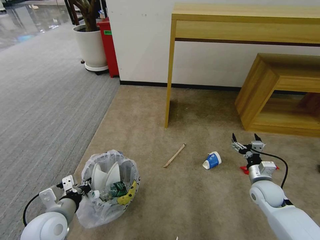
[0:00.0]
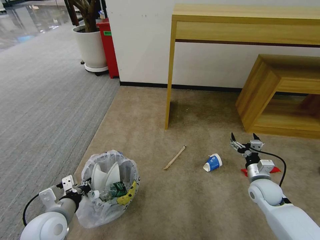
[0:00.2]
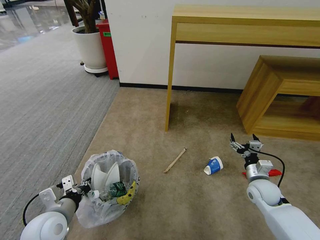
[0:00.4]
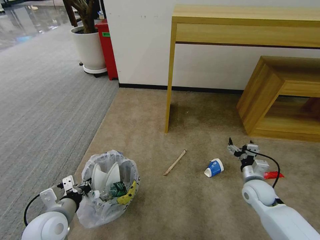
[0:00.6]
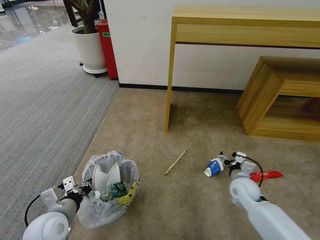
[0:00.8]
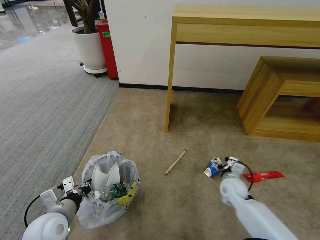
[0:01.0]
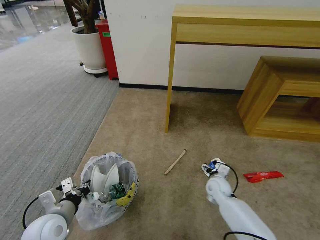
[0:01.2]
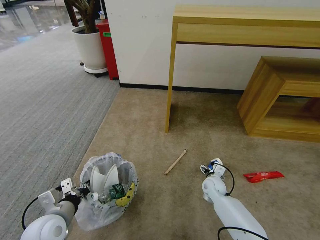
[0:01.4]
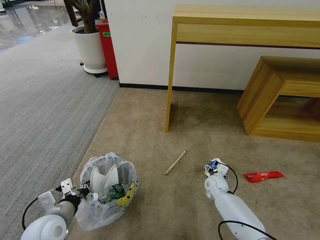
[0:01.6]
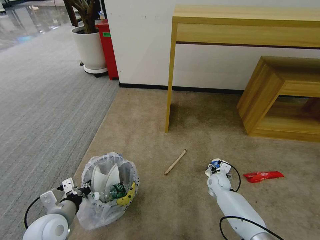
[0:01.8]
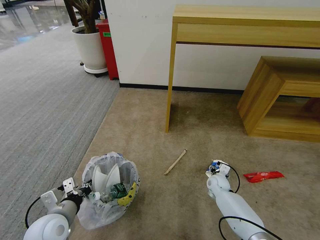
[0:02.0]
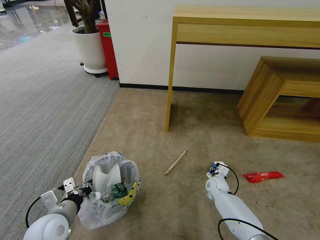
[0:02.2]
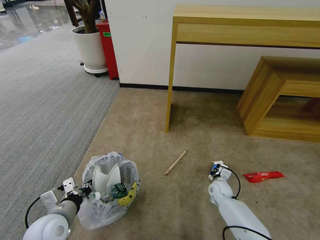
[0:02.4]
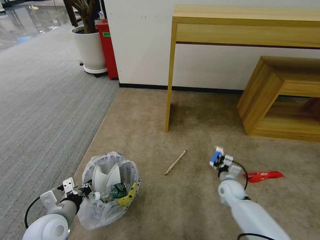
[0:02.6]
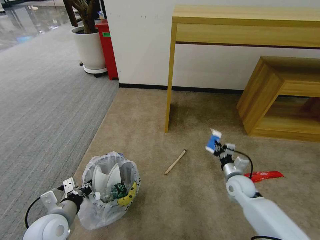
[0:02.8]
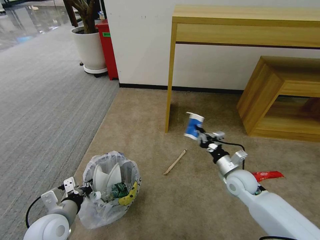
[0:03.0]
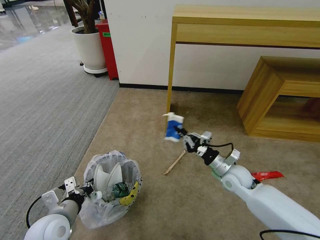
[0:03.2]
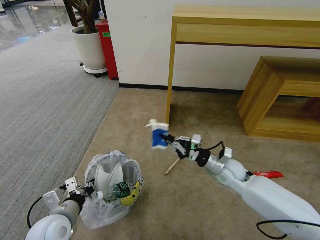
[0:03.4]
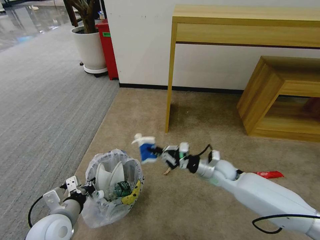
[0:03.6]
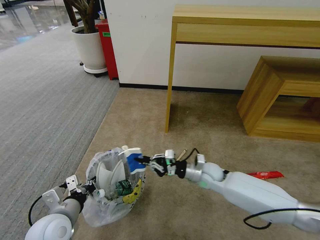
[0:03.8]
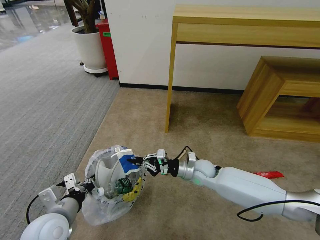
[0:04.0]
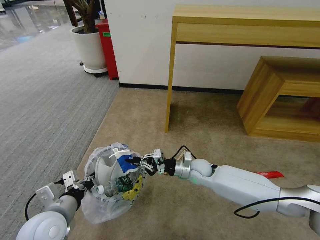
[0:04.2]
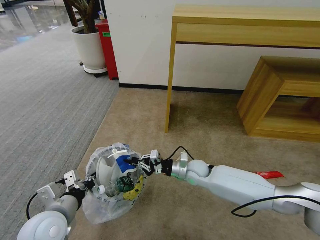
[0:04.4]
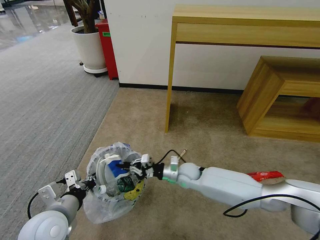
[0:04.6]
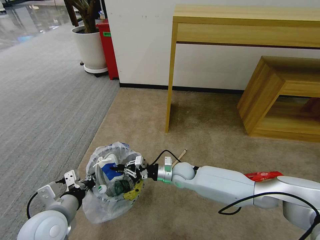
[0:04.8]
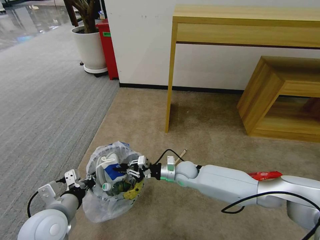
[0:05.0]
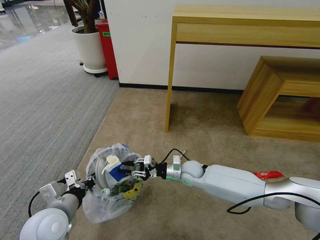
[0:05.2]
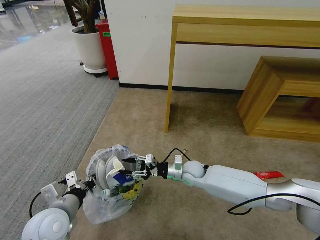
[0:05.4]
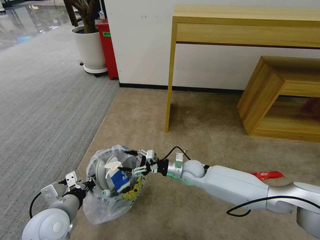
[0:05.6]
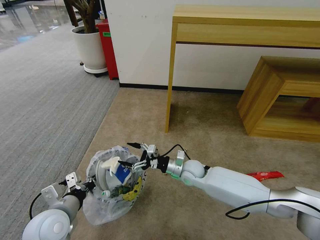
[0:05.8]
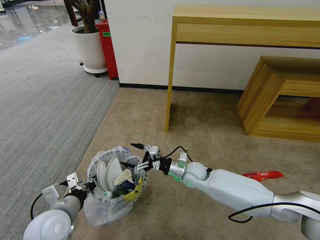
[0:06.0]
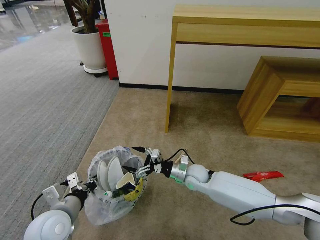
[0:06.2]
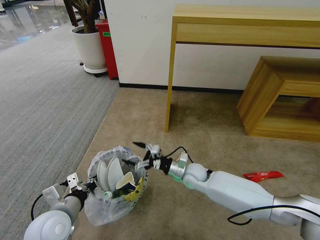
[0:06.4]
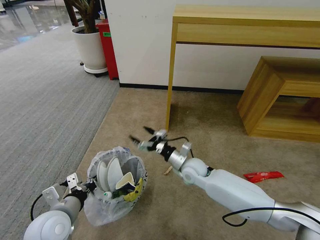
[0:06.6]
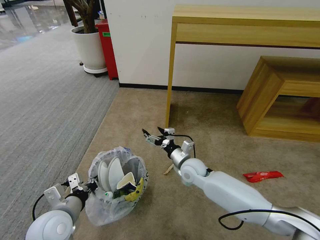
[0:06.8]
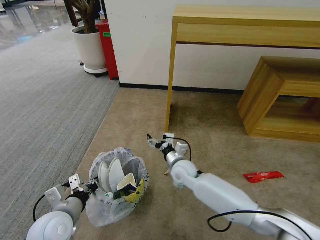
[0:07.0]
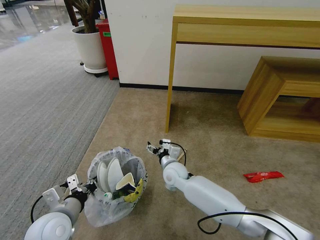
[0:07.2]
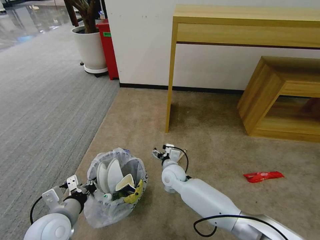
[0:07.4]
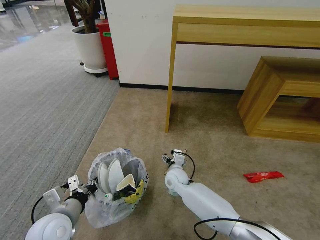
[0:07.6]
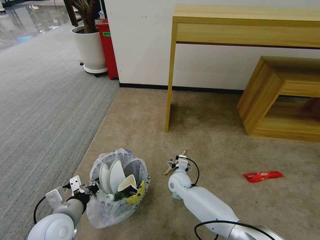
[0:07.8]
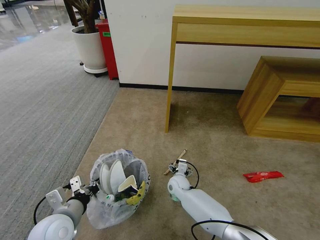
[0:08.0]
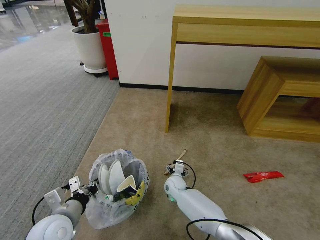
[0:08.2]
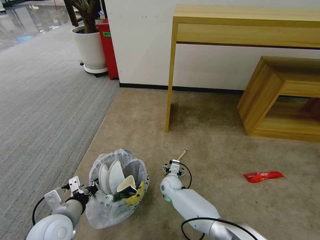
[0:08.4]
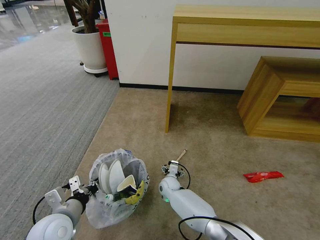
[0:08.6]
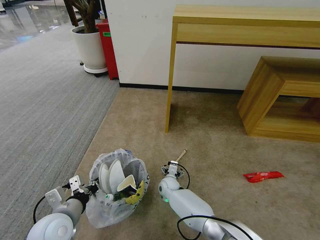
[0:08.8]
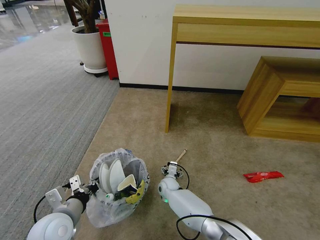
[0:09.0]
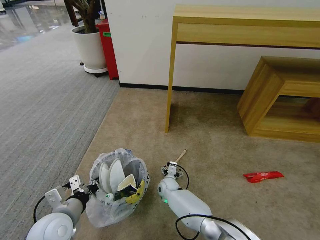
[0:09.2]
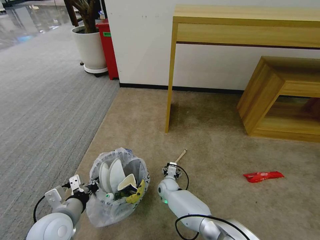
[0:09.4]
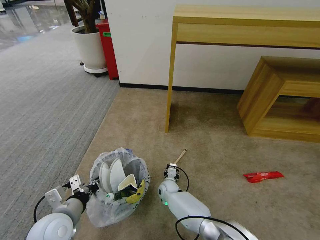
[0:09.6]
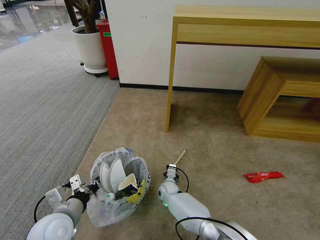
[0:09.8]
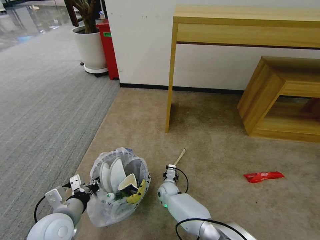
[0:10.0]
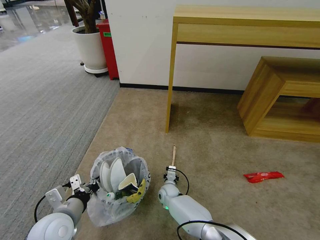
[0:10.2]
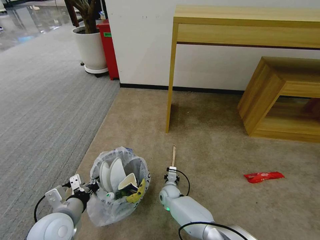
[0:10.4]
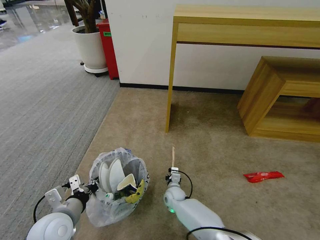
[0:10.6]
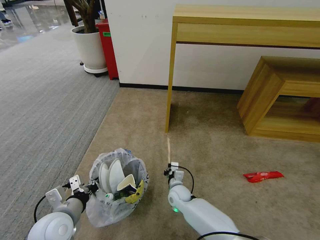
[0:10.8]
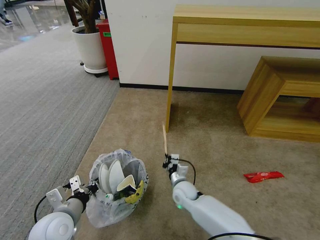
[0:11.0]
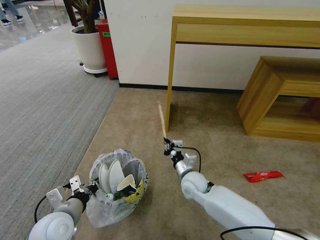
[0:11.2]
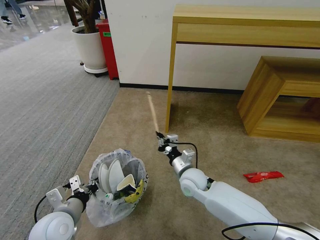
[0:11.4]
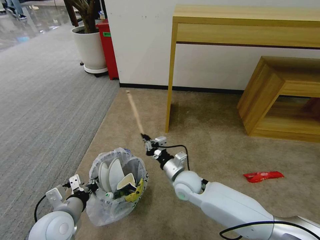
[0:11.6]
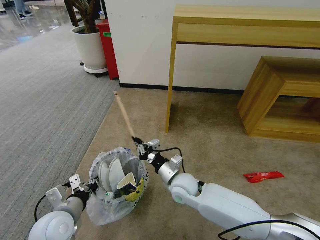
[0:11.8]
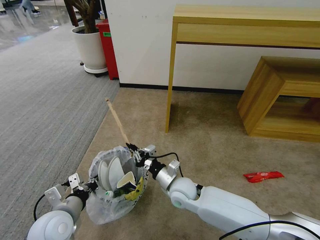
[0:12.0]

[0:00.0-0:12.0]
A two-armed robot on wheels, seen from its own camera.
Task of the whole recording: Pick up the trash bin and place the garbage on the floor into it.
0:00.0 to 0:01.6: The right gripper moves to the left, downward and forward, approximately 20 cm.
0:01.6 to 0:03.0: The right gripper heads upward, covering about 15 cm, and closes its fingers.
0:03.0 to 0:04.4: The right gripper is displaced to the left and forward by some 15 cm.
0:04.4 to 0:06.0: The right gripper opens its fingers.
0:06.0 to 0:07.6: The right gripper shifts approximately 10 cm to the left and downward.
0:07.6 to 0:09.0: The right gripper travels downward by some 10 cm.
0:09.0 to 0:10.4: The right gripper closes.
0:10.4 to 0:12.0: The right gripper travels upward by roughly 20 cm.

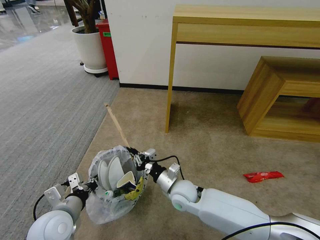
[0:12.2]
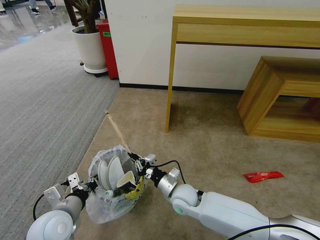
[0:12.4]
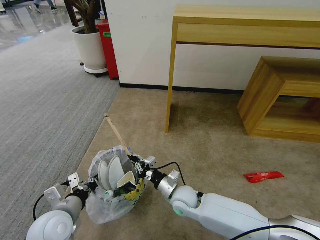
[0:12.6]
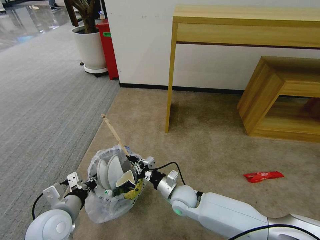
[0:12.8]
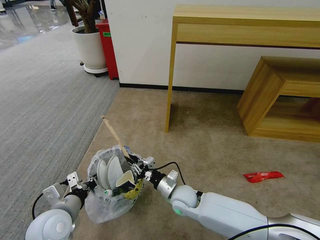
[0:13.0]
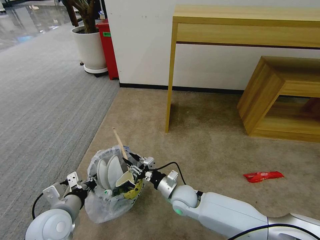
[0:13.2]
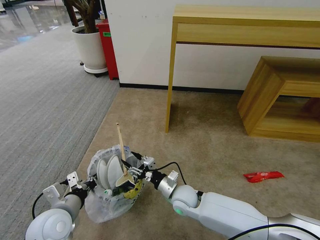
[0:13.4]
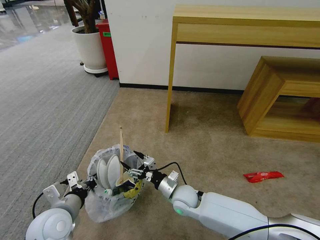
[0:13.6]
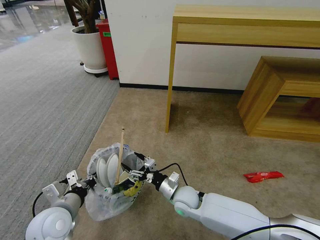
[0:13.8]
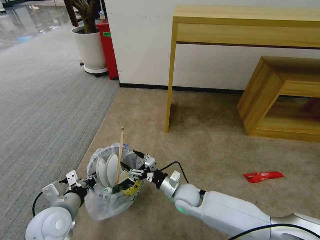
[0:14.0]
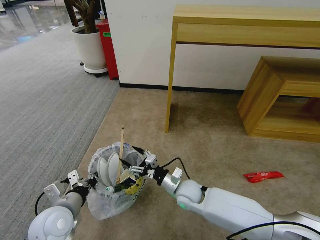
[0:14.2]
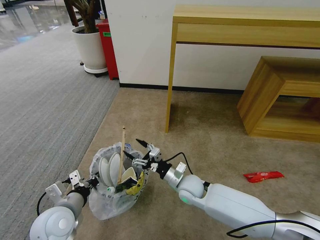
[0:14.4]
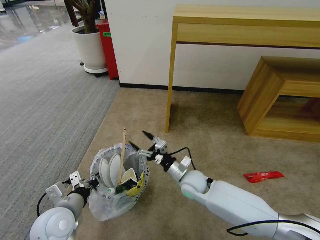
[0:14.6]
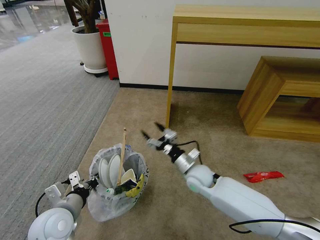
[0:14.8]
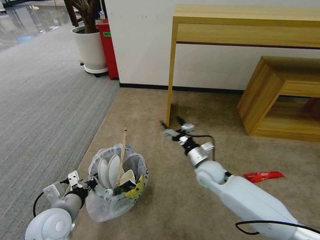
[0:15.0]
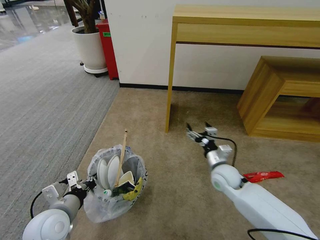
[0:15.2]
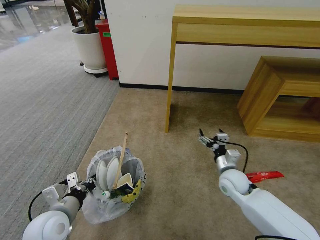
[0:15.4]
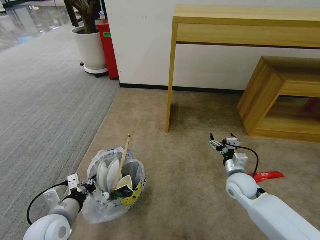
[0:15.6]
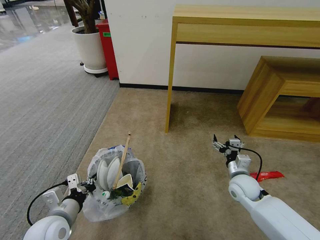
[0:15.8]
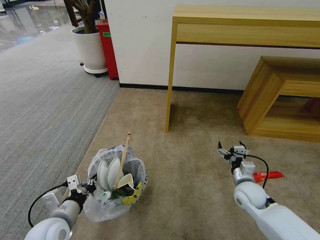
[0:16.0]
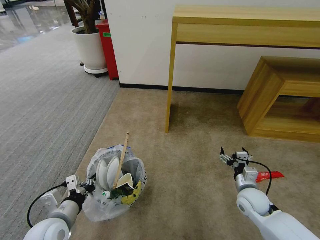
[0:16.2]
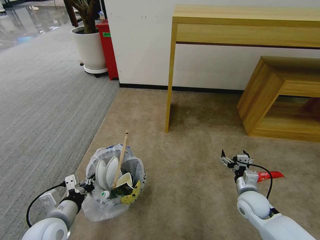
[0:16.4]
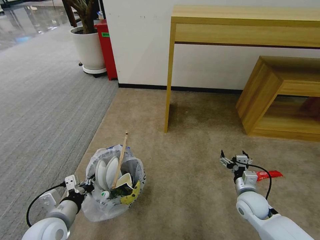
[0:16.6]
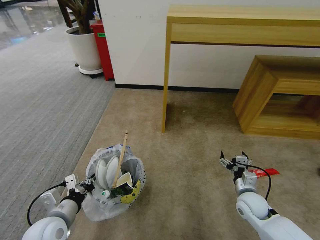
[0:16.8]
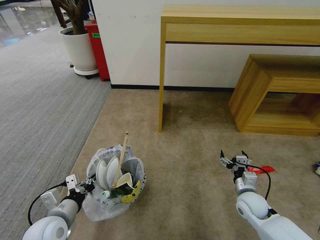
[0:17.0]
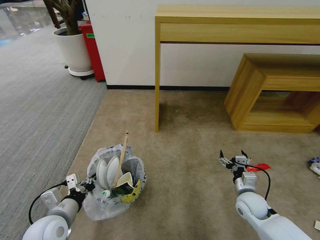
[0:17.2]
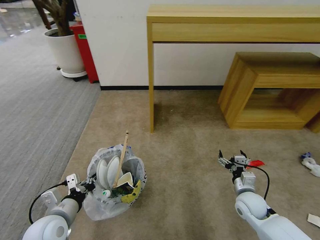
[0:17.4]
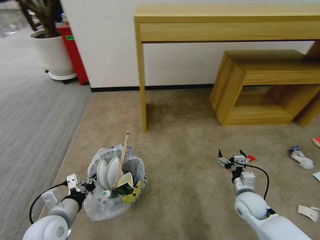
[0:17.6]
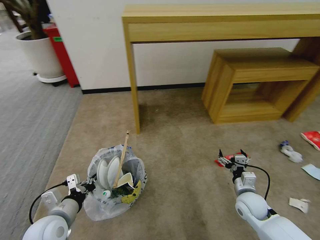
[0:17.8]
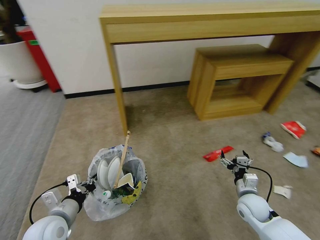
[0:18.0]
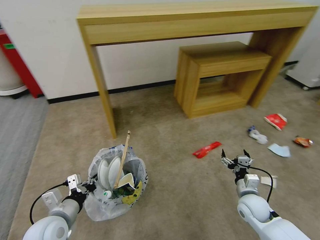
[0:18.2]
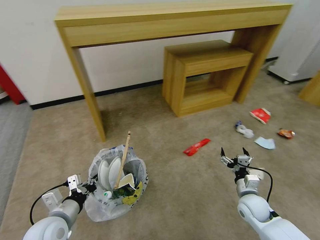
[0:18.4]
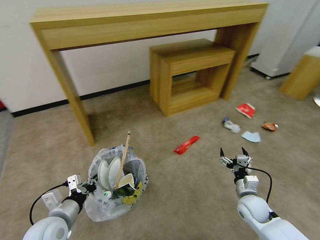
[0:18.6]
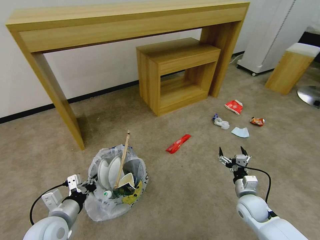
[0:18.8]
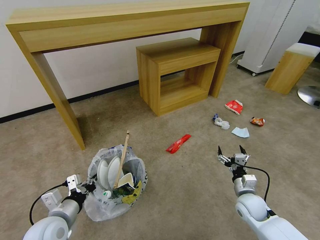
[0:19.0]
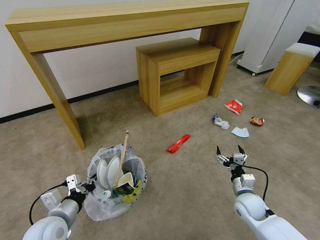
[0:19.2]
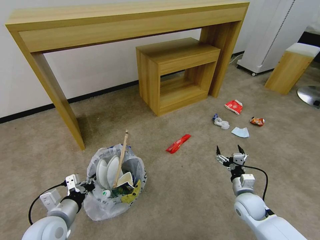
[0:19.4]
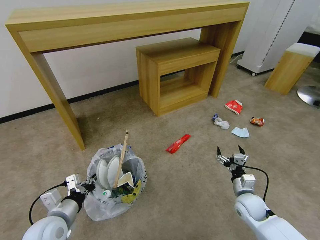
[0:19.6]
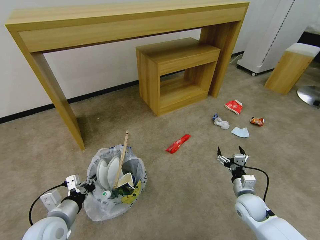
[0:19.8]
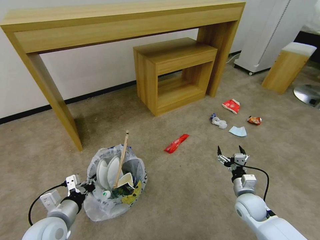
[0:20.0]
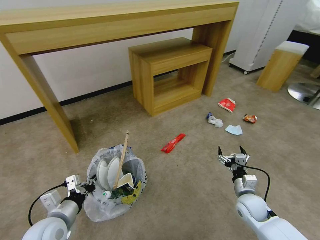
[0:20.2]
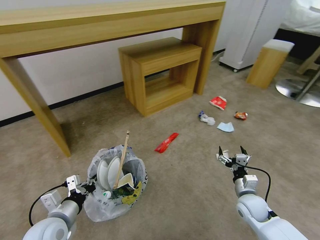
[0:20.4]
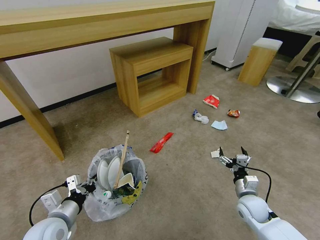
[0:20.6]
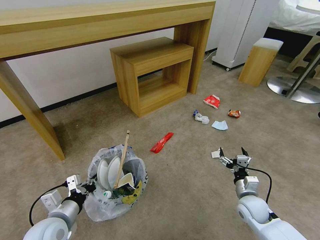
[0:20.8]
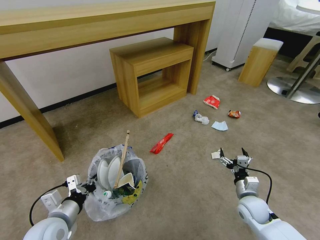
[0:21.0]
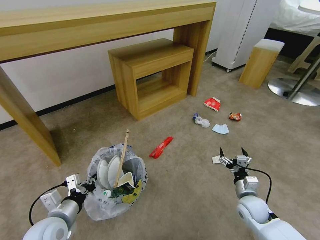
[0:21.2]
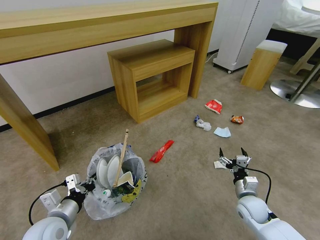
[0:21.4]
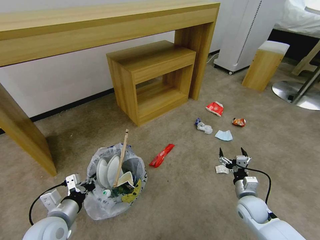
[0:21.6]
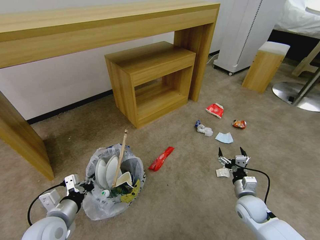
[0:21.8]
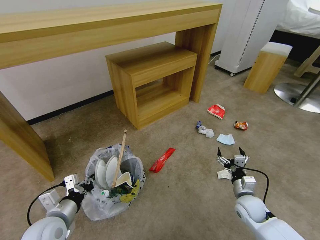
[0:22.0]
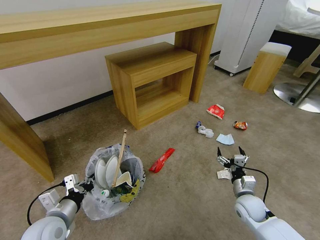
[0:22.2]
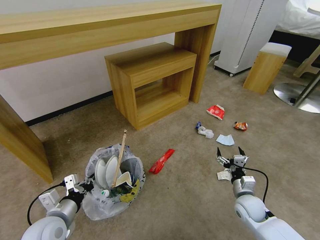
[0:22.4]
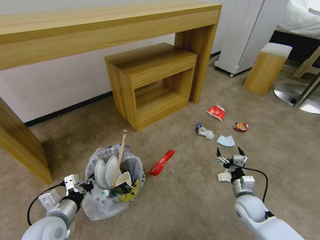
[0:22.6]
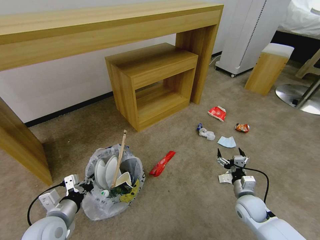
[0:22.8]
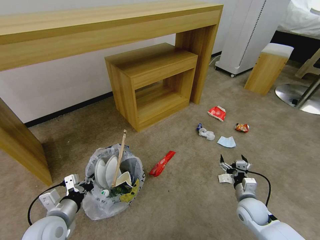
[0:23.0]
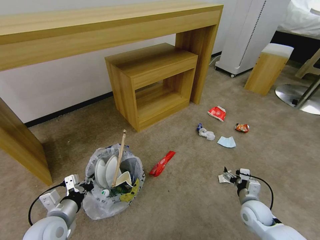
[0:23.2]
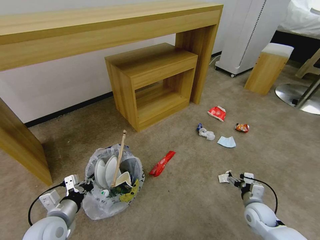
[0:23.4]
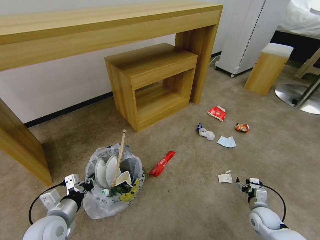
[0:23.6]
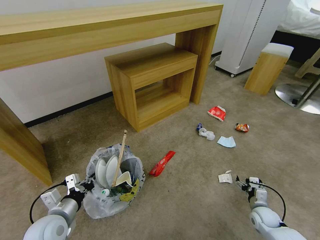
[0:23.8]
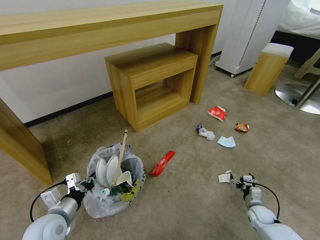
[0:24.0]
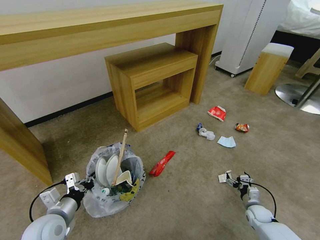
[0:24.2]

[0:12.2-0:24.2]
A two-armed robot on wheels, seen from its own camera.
Task of the whole recording: Pick up the trash bin and place the garbage on the floor into it.
0:12.2 to 0:13.8: The right gripper opens up.
0:13.8 to 0:15.2: The right gripper moves to the right and upward, some 15 cm.
0:15.2 to 0:16.6: The right gripper shifts approximately 15 cm to the right, backward and downward.
0:22.6 to 0:24.2: The right gripper shifts approximately 15 cm downward and to the right.
